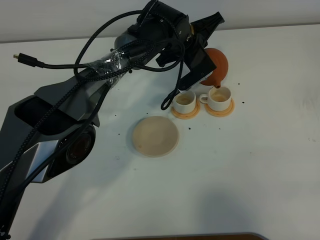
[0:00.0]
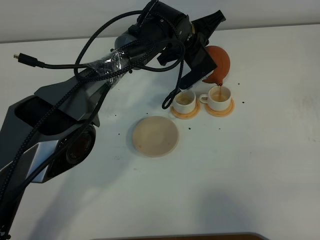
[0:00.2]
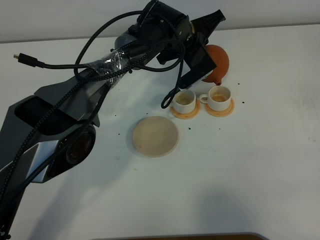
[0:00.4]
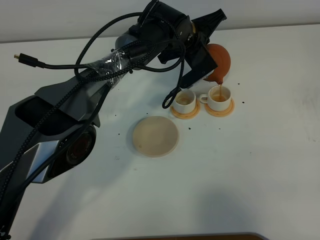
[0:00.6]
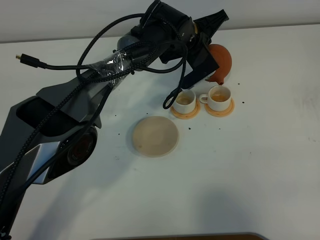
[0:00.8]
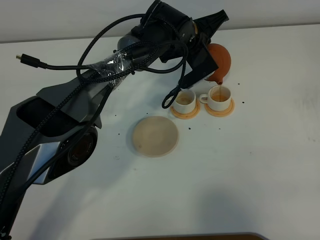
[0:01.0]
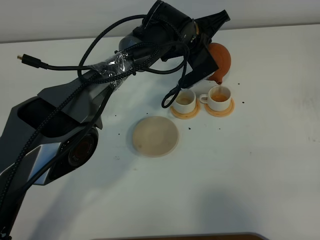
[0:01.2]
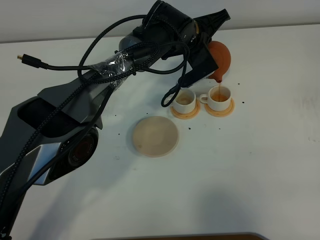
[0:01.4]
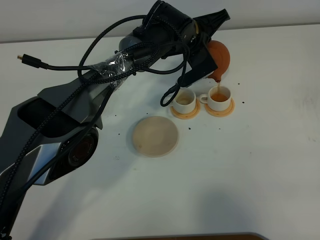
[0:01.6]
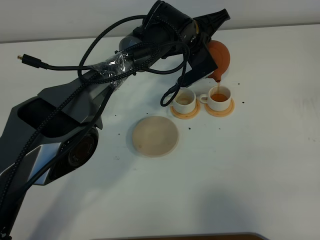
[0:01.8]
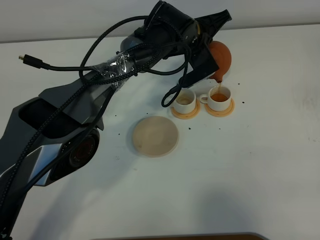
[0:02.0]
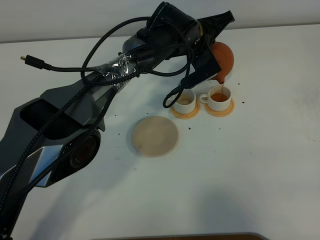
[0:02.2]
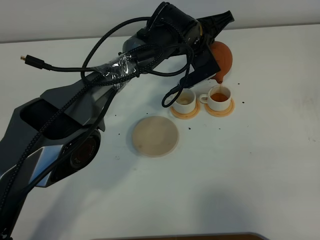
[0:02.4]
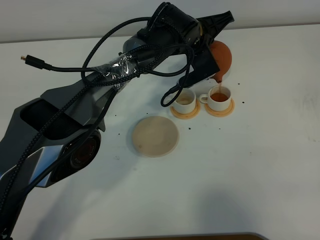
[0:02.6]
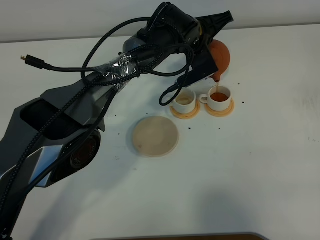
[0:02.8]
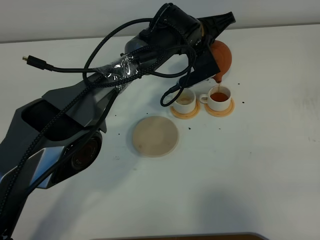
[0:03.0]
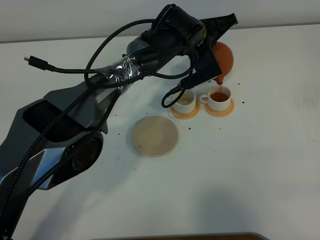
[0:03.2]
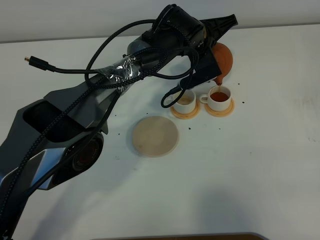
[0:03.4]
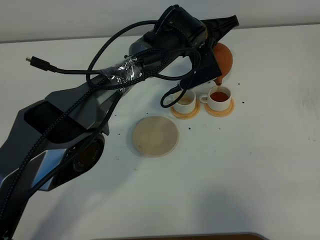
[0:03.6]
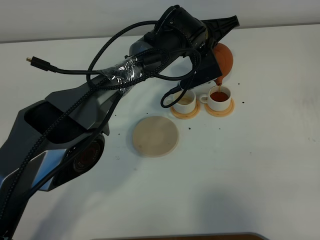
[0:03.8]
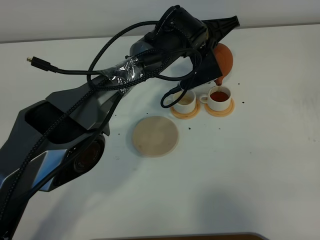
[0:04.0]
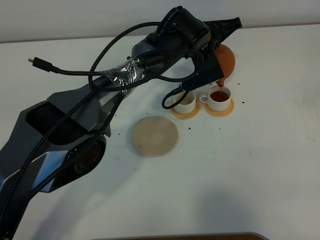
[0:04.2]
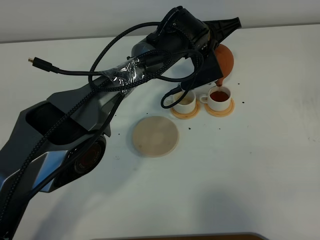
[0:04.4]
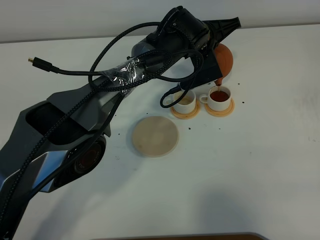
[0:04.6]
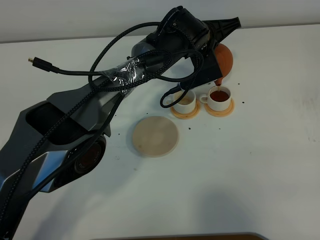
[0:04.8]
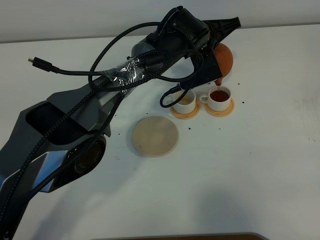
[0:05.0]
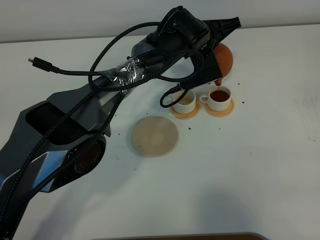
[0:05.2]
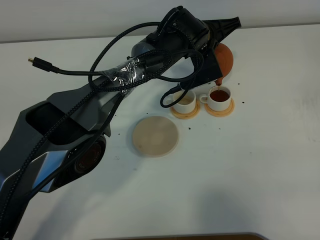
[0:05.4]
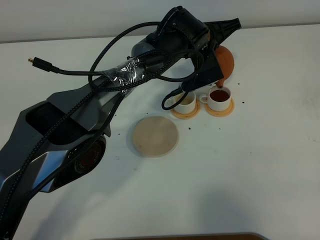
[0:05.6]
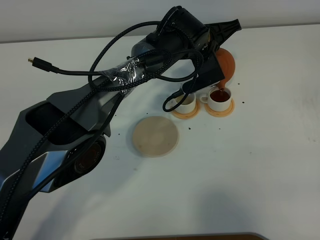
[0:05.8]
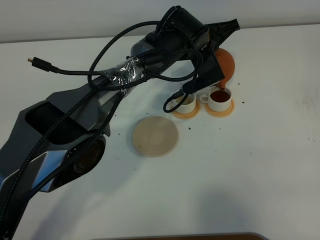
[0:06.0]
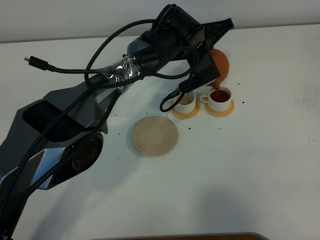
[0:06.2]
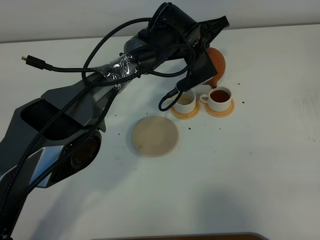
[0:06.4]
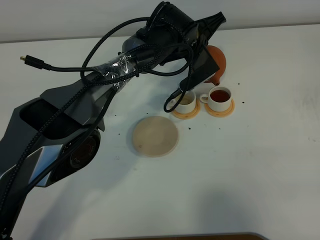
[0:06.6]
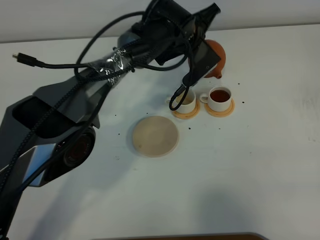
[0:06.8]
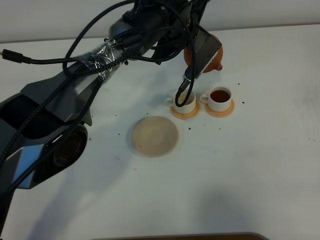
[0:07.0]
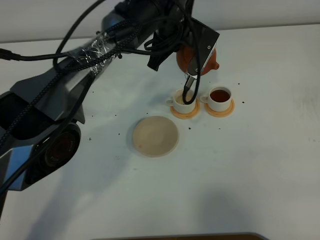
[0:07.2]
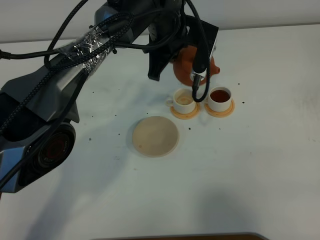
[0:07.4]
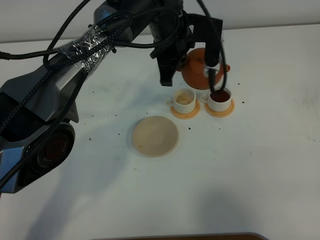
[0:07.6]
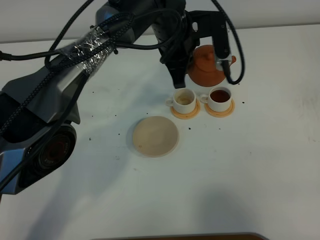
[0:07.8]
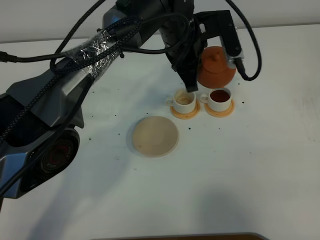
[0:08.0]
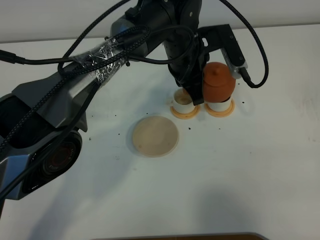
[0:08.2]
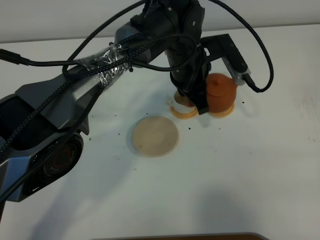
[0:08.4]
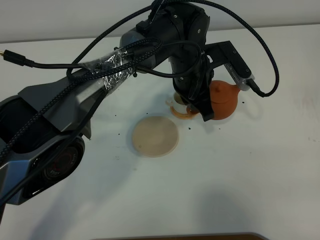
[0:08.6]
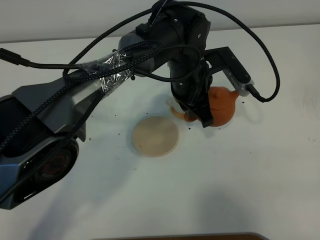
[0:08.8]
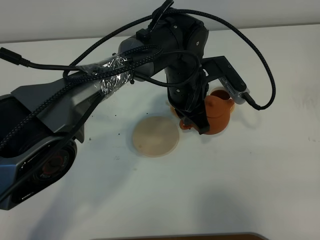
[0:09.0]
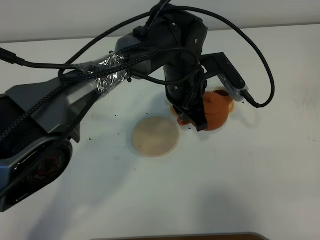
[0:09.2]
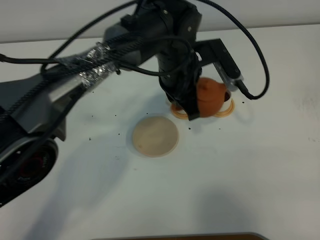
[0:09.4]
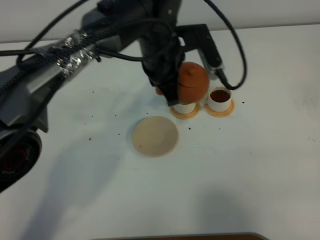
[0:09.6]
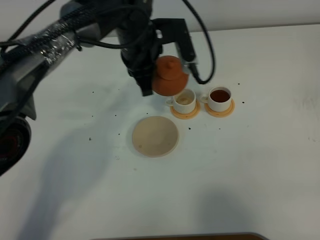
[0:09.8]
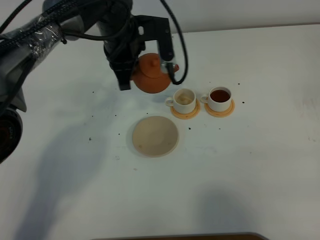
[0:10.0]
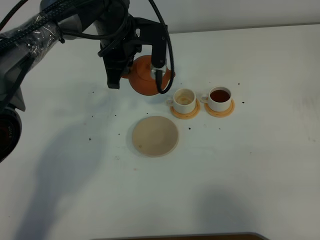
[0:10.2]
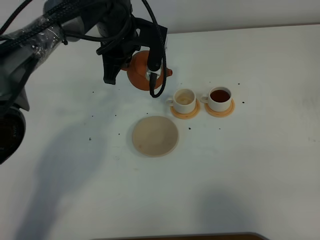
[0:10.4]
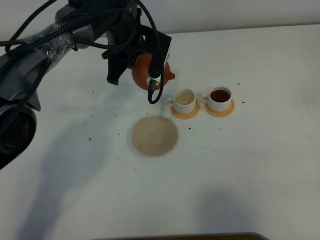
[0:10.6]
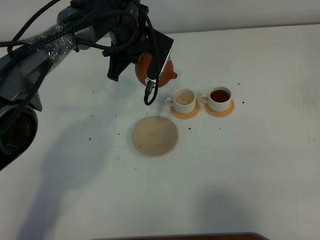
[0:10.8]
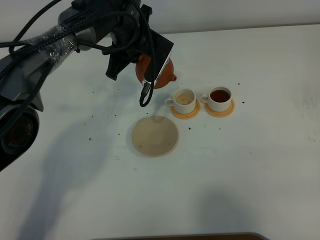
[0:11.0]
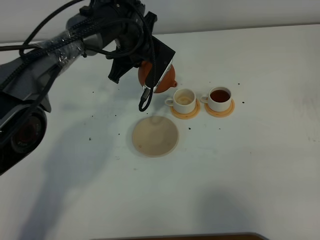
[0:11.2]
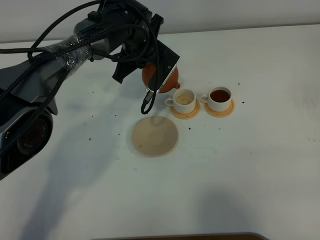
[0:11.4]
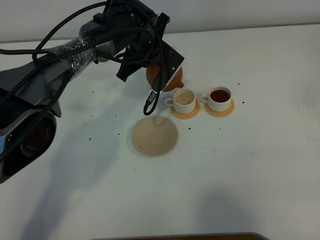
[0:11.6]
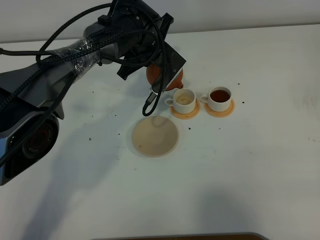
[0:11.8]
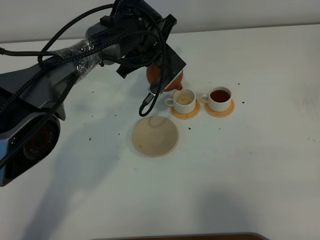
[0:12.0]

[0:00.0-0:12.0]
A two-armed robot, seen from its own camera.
Task of the whole recording: grasp the brown teapot and pour the tea into the two white teacups one by one, put the brown teapot back in its original place.
0:00.0 to 0:03.0: The grippers make only small movements.
0:03.0 to 0:04.4: Neither gripper changes place.
0:04.4 to 0:06.0: The grippers move only a little.
0:06.0 to 0:07.6: The left gripper goes some 5 cm upward.
0:07.6 to 0:09.0: The left gripper moves downward and backward, roughly 10 cm.
0:09.0 to 0:10.4: The left gripper heads to the left, forward and upward, covering roughly 15 cm.
0:10.4 to 0:12.0: The left gripper changes place by approximately 5 cm.

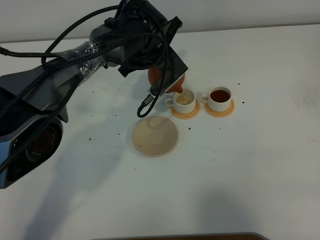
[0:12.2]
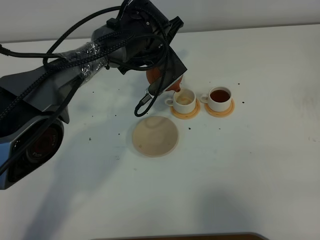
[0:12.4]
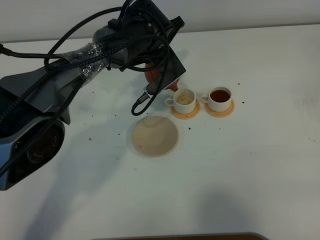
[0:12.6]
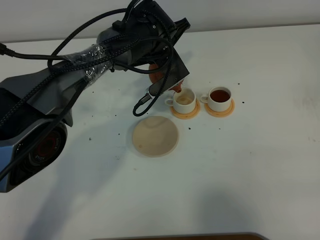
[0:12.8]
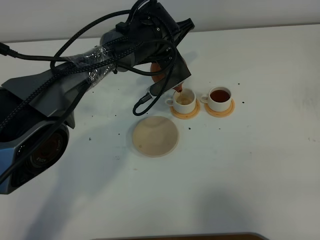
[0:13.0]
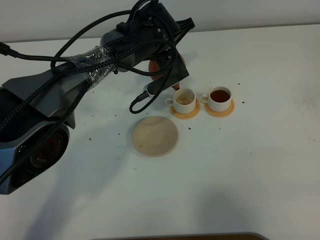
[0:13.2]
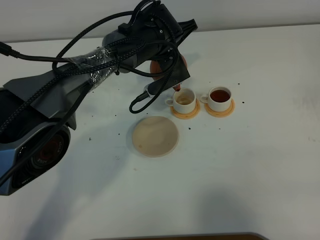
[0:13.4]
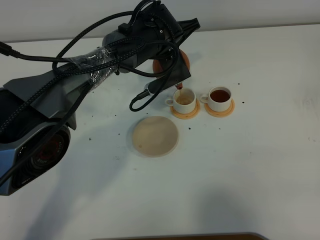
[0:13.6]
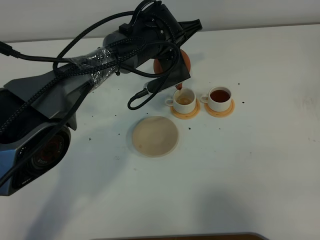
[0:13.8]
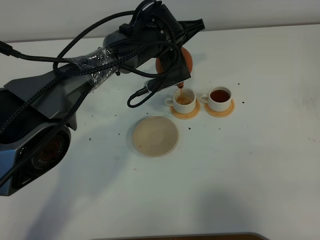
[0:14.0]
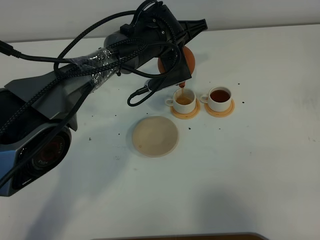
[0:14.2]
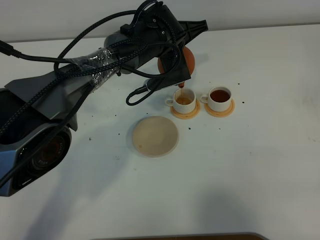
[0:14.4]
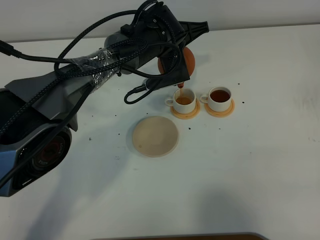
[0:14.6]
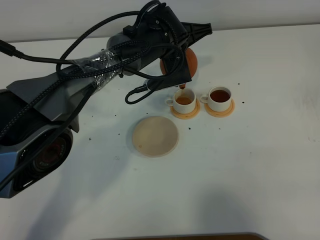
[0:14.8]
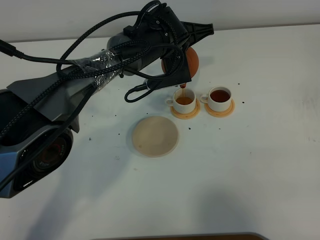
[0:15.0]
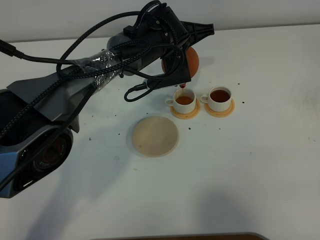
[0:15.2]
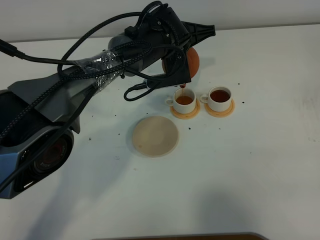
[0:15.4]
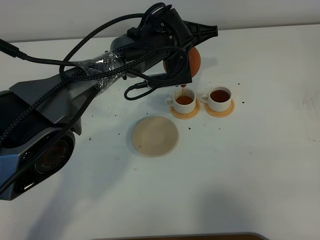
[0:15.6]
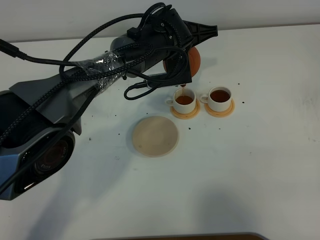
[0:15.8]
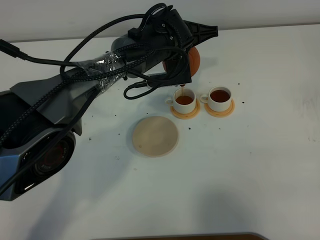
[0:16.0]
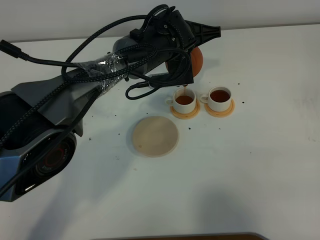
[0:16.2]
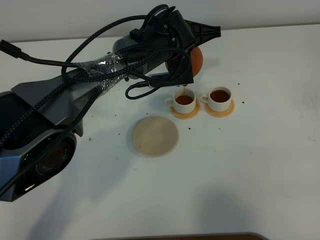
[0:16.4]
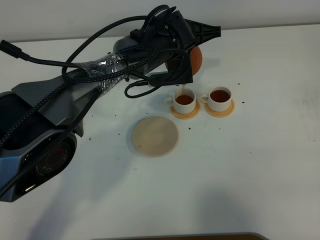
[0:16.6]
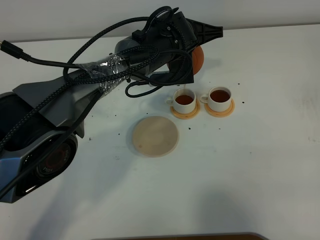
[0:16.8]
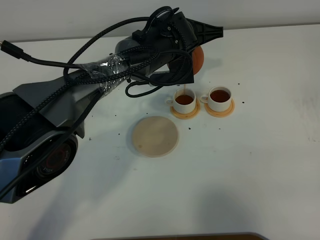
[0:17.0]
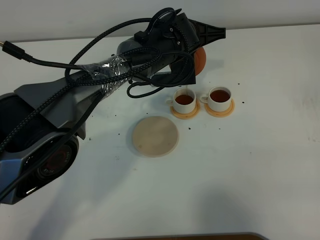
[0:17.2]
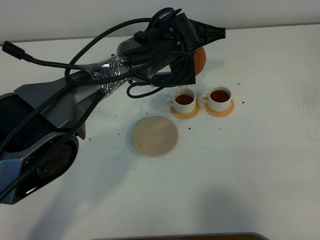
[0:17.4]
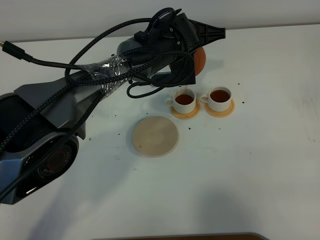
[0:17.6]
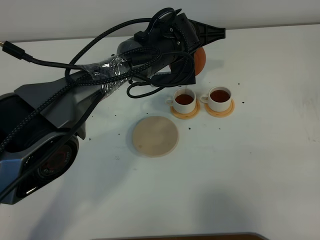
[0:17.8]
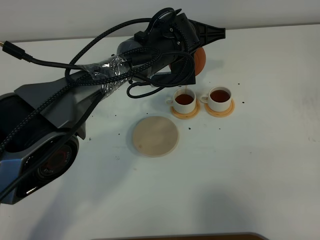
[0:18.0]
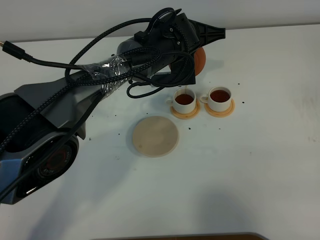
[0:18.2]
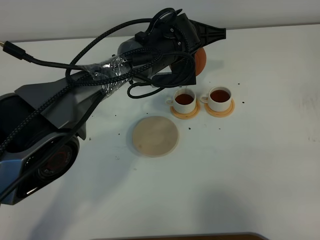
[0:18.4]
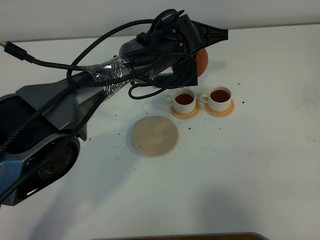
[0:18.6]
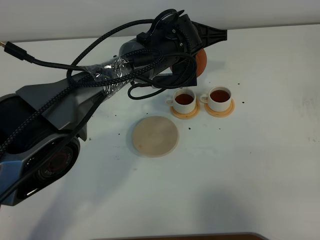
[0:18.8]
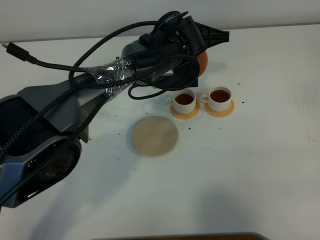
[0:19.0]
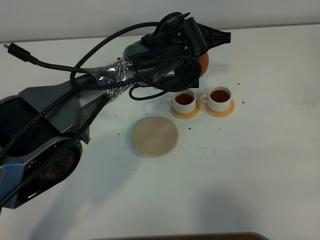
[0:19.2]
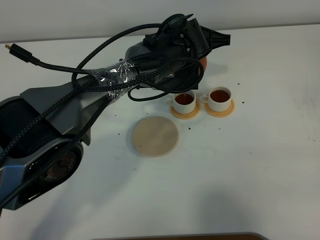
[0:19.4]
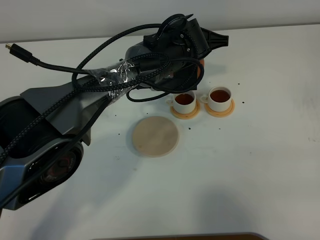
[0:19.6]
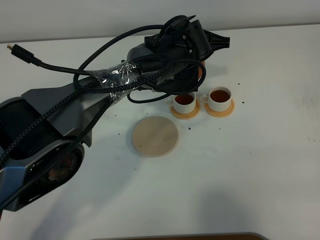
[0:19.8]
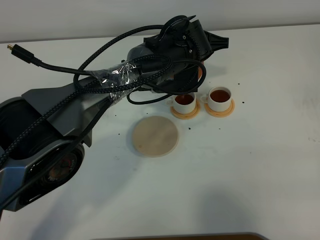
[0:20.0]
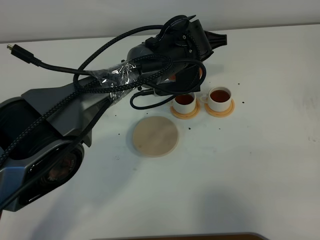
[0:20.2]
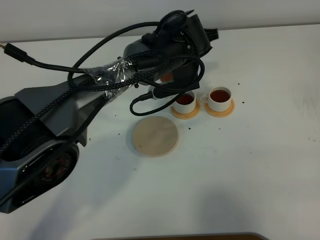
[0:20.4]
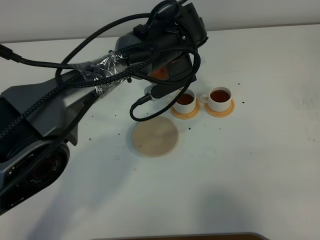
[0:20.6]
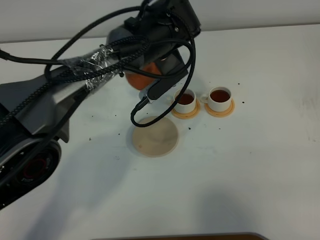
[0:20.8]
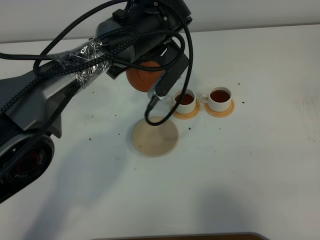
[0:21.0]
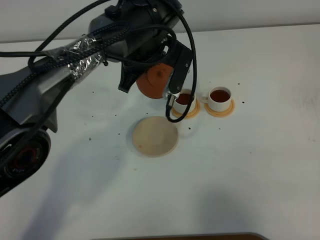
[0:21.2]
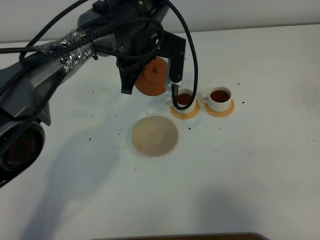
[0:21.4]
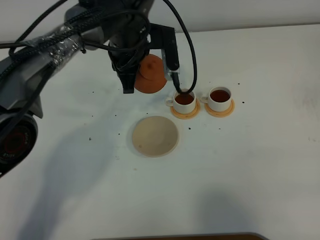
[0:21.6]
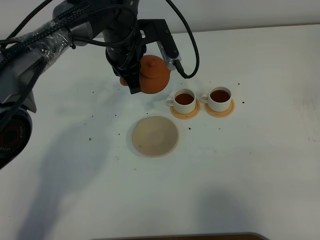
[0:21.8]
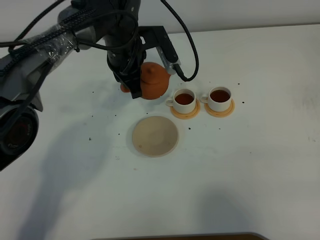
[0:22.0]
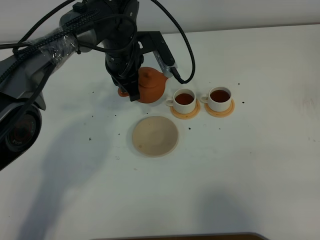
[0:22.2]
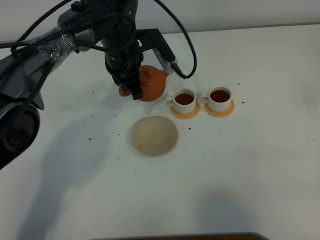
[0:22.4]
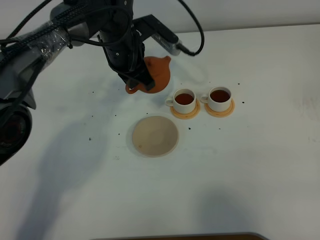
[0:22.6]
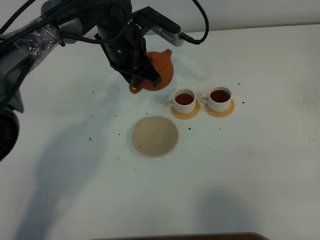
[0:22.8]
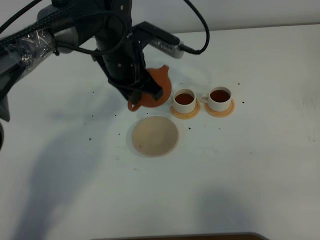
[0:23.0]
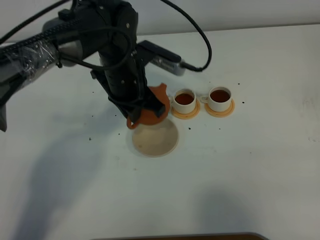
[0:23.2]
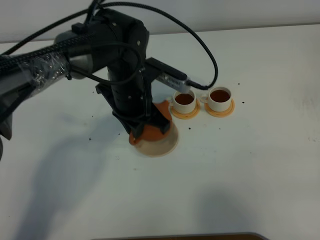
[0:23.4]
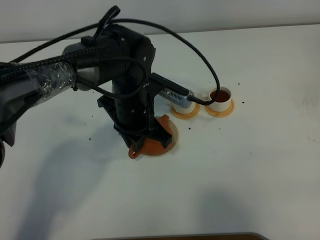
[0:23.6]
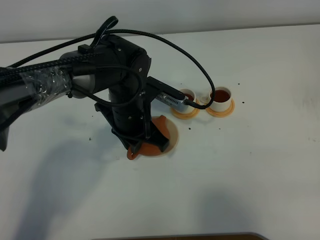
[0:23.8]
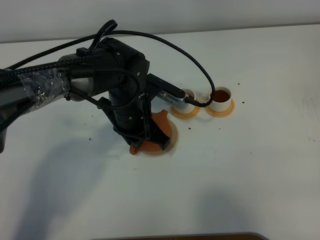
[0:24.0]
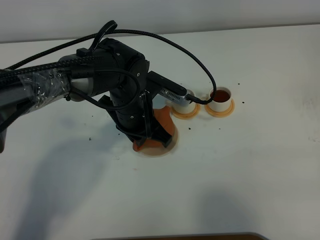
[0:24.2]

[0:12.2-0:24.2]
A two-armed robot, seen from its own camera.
Task of the whole recording: grasp the brown teapot and pour the tea into the two white teacups one by one, put the brown teapot back in its original place.
Step, 0:12.2 to 0:21.4: Pour tea into the teacup with the left gripper.
0:13.8 to 0:16.6: The grippers stay close to where they were, moving slightly.
0:16.6 to 0:18.2: Both grippers stay about where they are.
0:18.2 to 0:19.8: The grippers make only small movements.
0:19.8 to 0:21.2: The left gripper heads to the left, covering some 10 cm.
0:21.2 to 0:22.6: The left gripper changes place by about 5 cm.
0:22.6 to 0:24.2: The left gripper shifts about 10 cm backward and downward.
